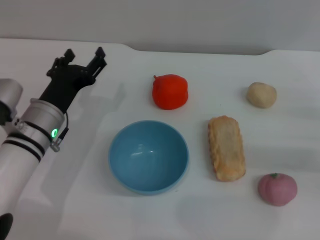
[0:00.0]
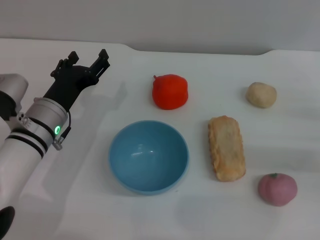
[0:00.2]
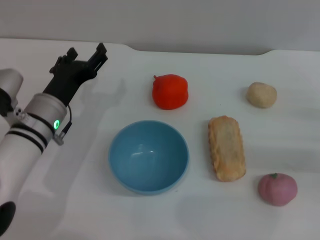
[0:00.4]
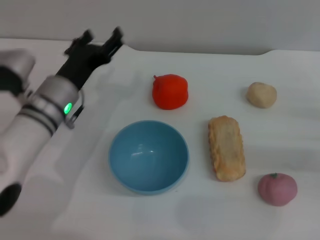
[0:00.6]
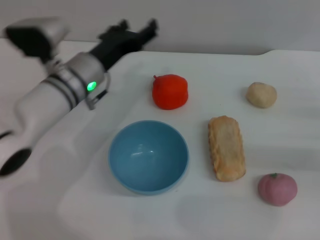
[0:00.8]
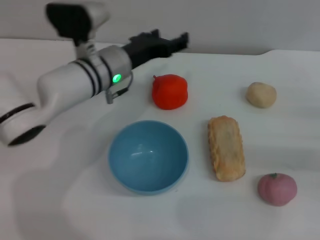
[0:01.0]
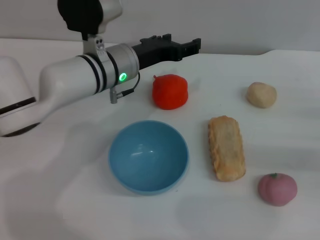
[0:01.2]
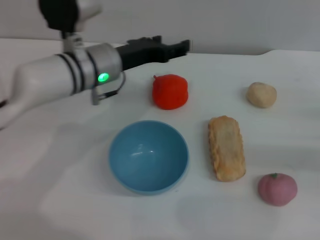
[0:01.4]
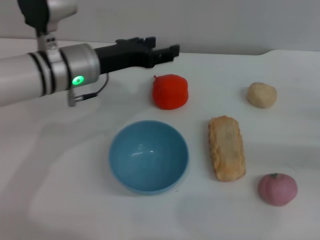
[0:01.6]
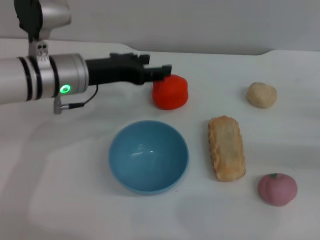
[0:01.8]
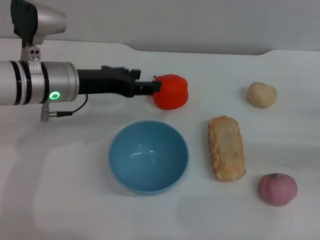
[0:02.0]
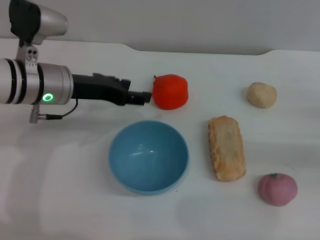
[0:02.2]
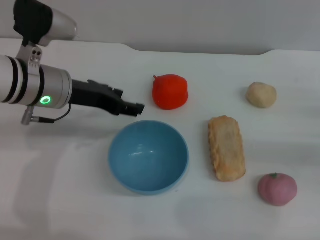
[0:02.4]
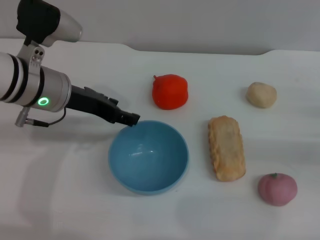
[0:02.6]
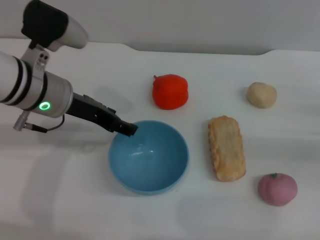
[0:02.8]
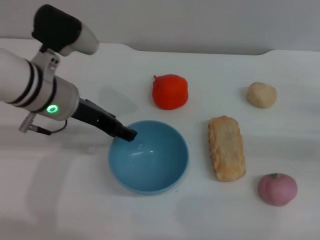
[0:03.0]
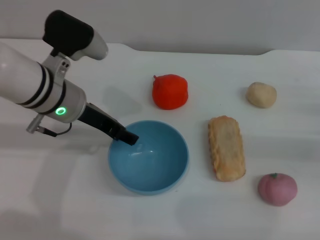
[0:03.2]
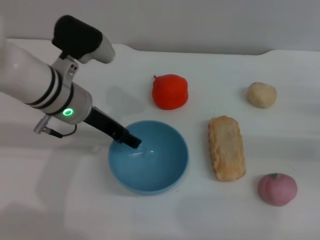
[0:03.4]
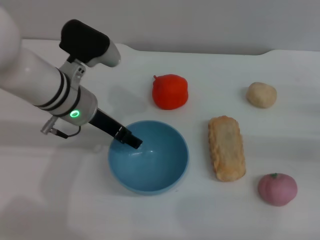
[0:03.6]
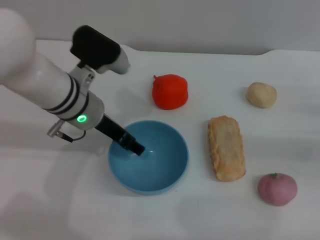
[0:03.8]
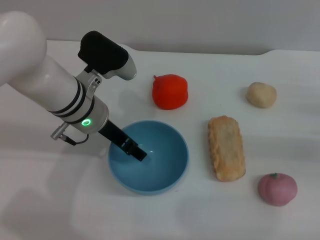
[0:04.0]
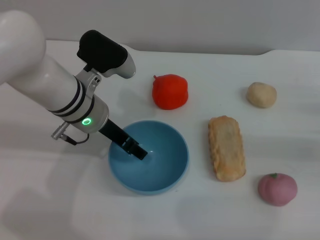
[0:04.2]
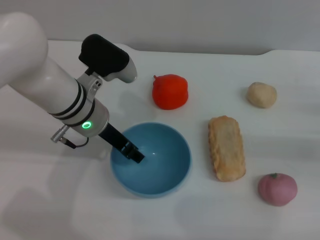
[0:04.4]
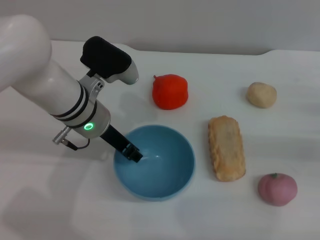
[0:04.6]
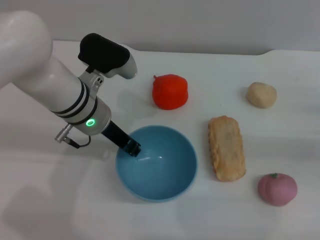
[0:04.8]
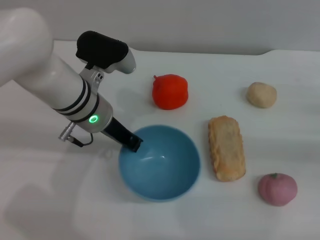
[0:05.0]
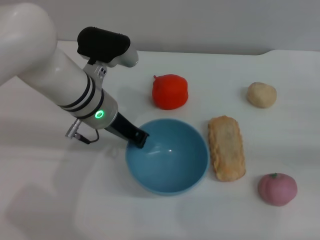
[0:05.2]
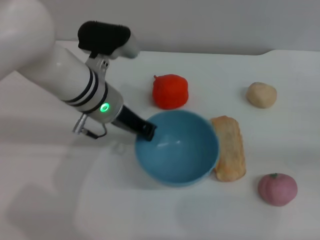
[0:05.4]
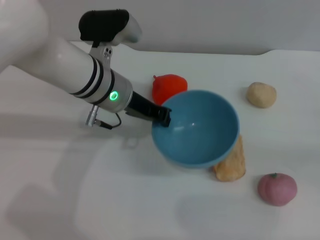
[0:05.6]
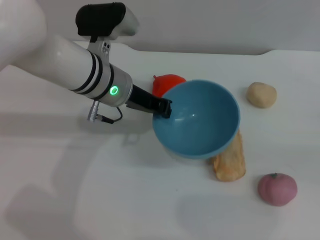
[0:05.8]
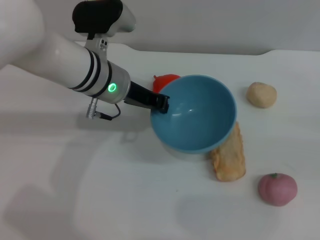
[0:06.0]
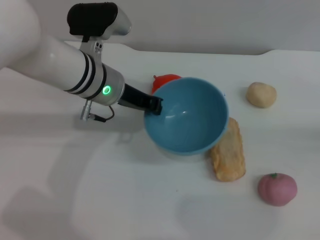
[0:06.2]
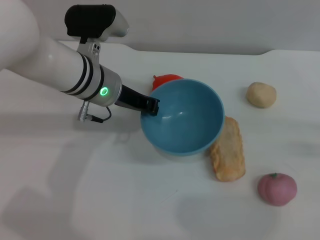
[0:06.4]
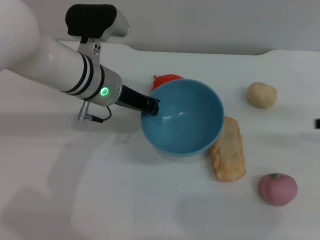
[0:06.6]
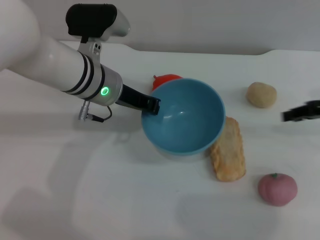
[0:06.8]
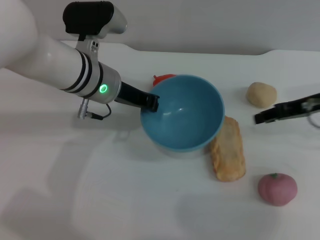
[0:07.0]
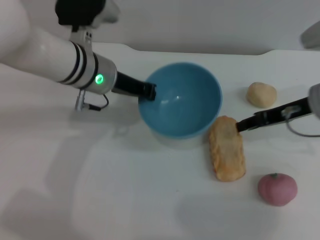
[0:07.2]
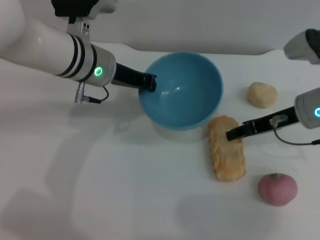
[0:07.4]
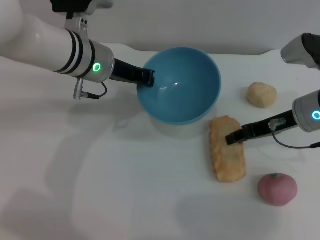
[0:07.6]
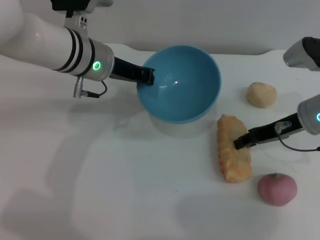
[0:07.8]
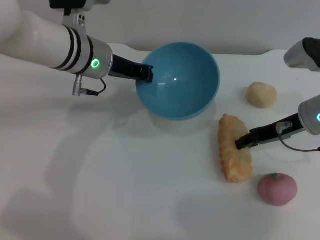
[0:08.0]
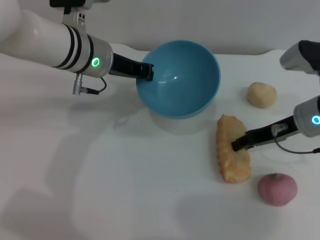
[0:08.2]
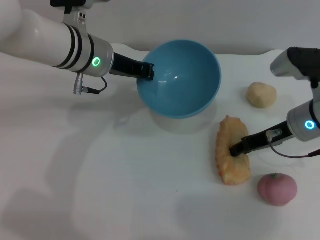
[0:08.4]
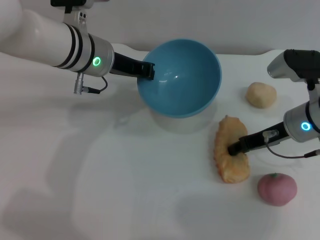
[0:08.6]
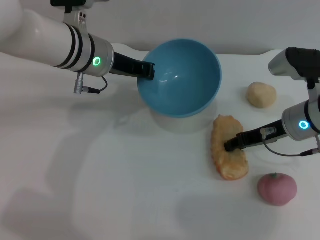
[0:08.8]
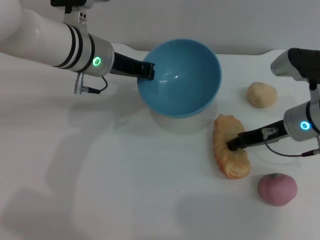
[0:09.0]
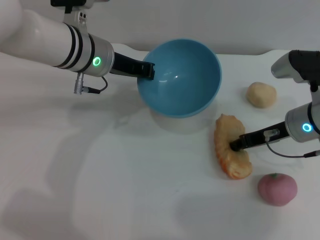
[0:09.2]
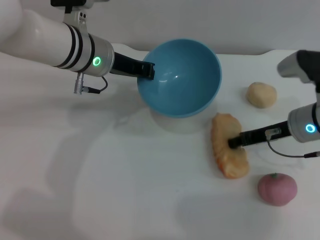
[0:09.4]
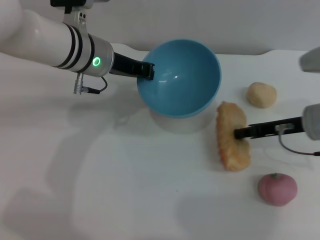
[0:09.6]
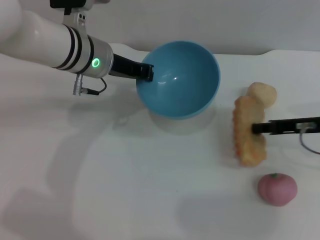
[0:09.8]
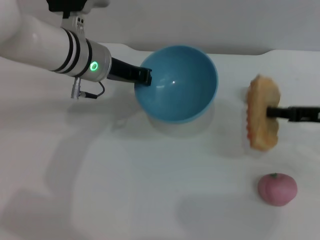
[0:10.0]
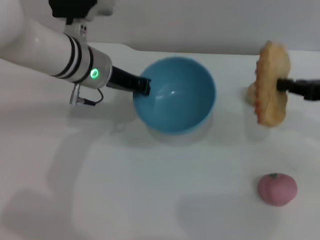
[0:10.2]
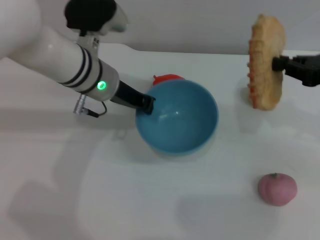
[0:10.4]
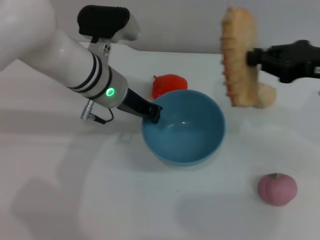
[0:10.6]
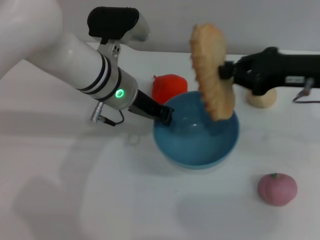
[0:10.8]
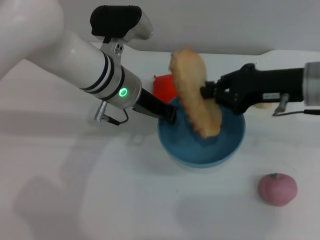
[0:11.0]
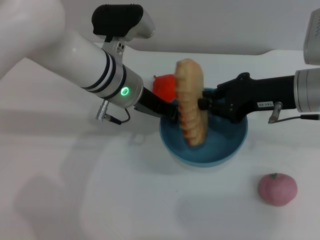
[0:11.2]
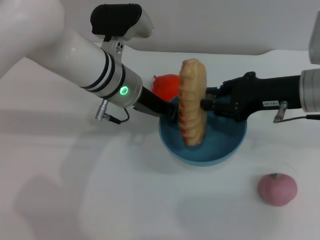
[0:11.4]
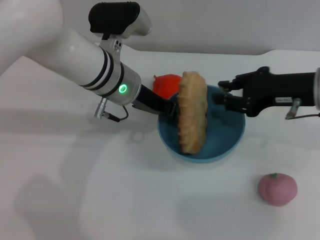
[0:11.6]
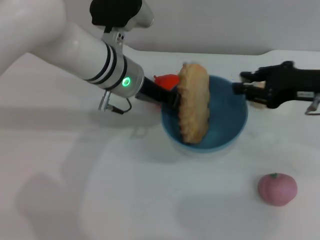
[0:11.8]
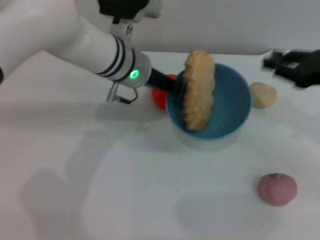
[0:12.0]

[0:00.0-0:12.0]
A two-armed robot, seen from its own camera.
Task of the whole recording: put the bread into the blue bowl and pour it out repeatedly.
Step, 0.0 to 5.6 s: Pick up the bowl with the left gripper.
Step, 5.8 to 9.8 s: Pick up the bread with the right gripper.
Step, 10.2 to 12.0 s: Place the bread into the bowl.
0.0 to 1.6 s: The left gripper heads upward and forward, covering about 10 cm.
3.0 to 4.4 s: The left gripper moves some 5 cm.
4.4 to 6.0 s: The right gripper moves to the right, some 5 cm; the left gripper closes.
6.0 to 7.6 s: The right gripper goes about 25 cm to the left.
7.6 to 9.0 s: There are only small adjustments of the grippers.
9.0 to 10.4 s: The right gripper travels upward and to the right by roughly 15 cm.
10.4 to 12.0 s: The right gripper moves about 10 cm to the left and comes back, and opens.

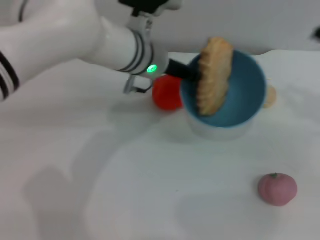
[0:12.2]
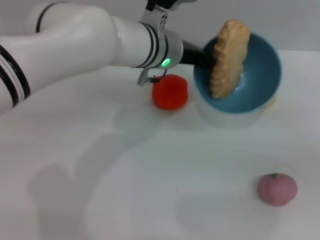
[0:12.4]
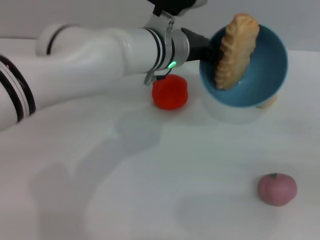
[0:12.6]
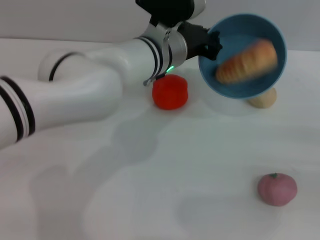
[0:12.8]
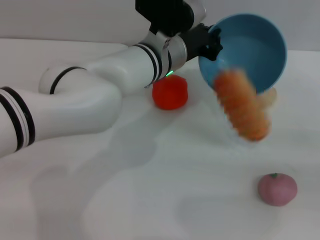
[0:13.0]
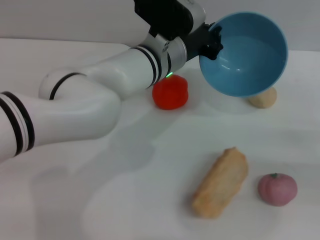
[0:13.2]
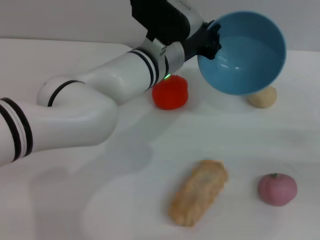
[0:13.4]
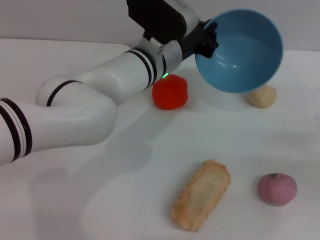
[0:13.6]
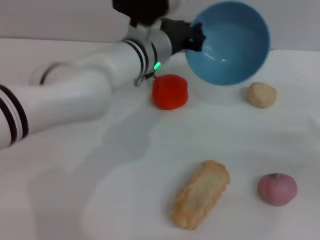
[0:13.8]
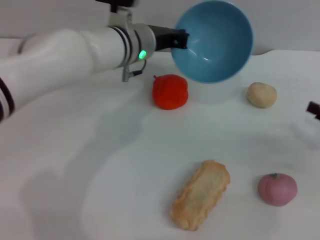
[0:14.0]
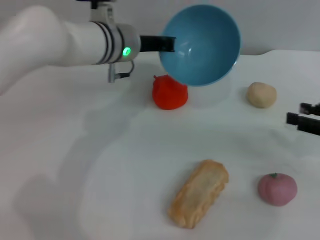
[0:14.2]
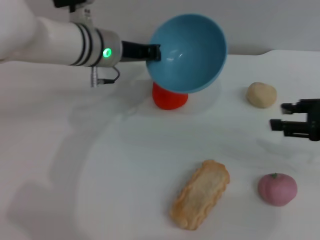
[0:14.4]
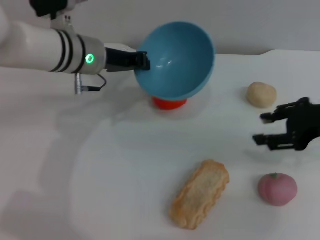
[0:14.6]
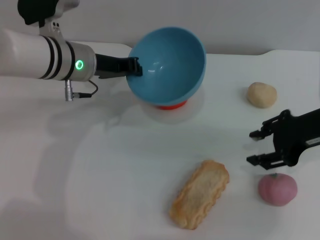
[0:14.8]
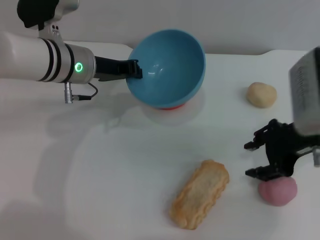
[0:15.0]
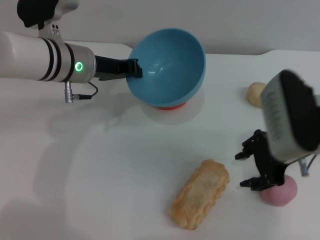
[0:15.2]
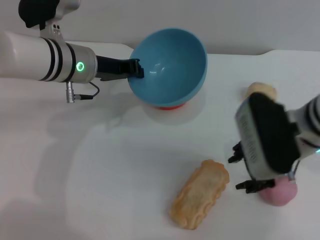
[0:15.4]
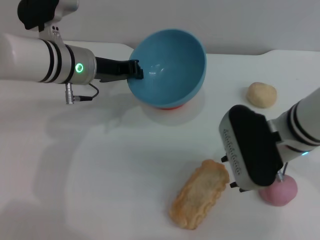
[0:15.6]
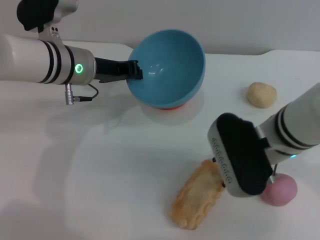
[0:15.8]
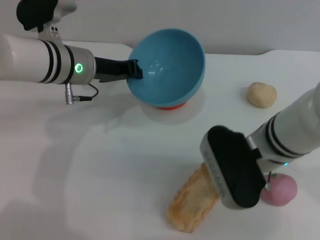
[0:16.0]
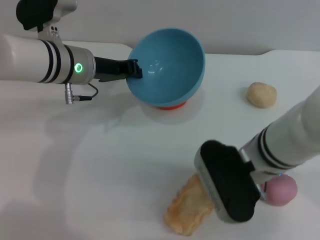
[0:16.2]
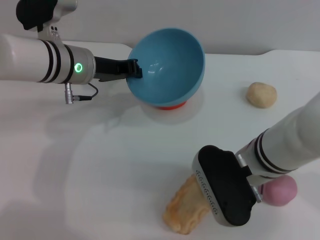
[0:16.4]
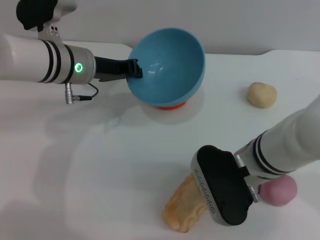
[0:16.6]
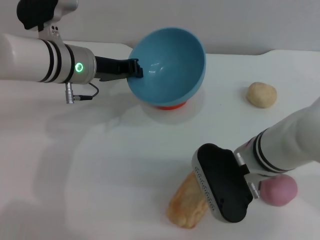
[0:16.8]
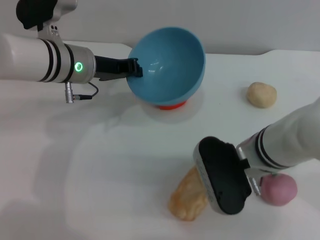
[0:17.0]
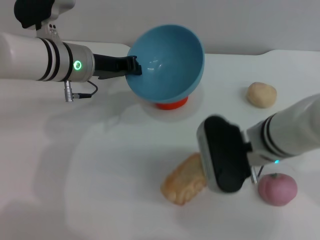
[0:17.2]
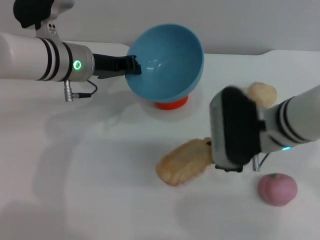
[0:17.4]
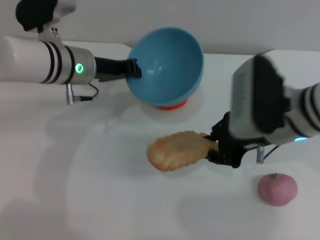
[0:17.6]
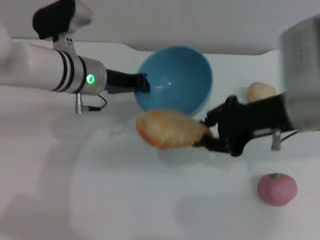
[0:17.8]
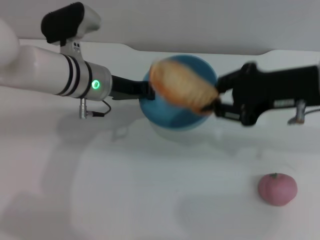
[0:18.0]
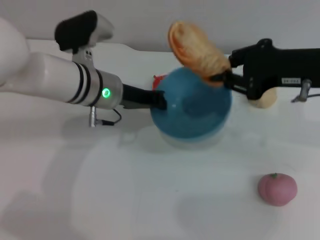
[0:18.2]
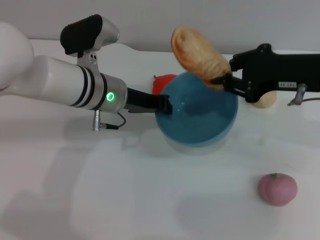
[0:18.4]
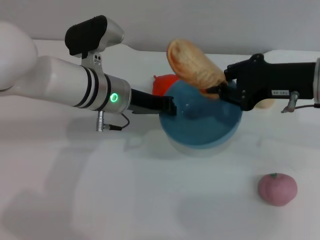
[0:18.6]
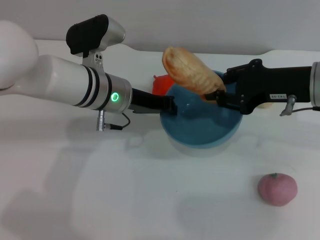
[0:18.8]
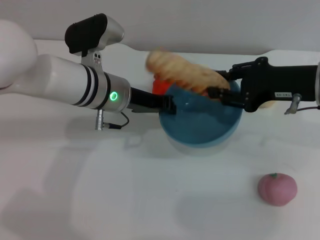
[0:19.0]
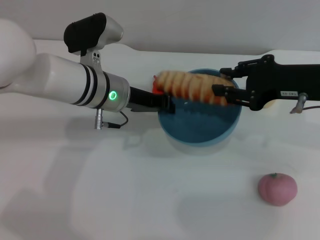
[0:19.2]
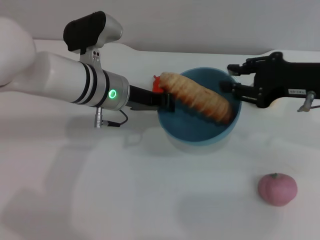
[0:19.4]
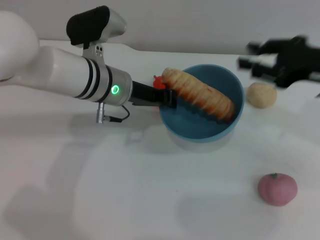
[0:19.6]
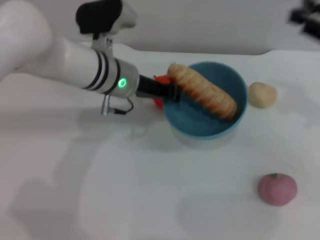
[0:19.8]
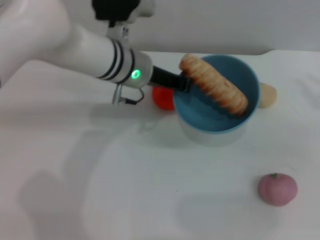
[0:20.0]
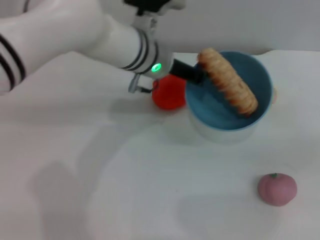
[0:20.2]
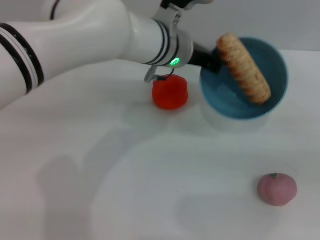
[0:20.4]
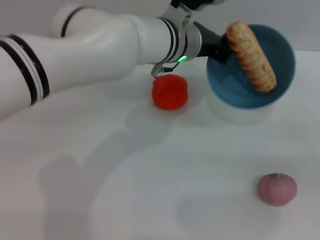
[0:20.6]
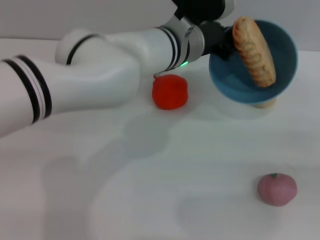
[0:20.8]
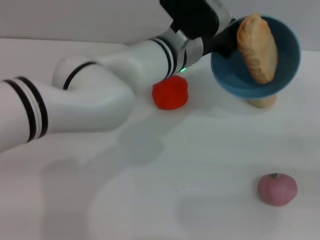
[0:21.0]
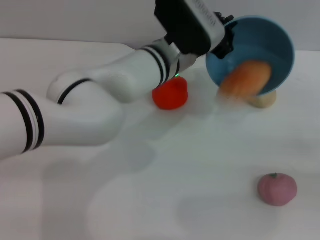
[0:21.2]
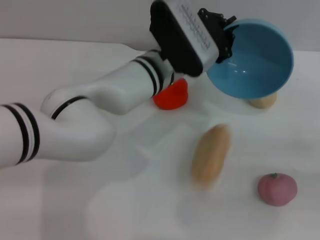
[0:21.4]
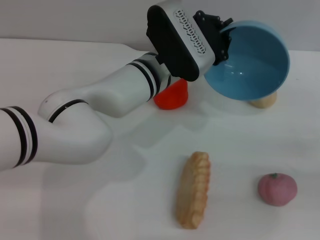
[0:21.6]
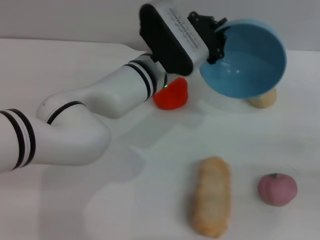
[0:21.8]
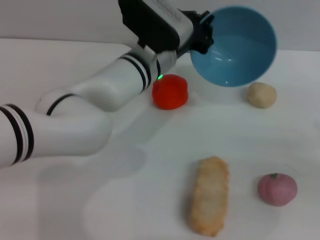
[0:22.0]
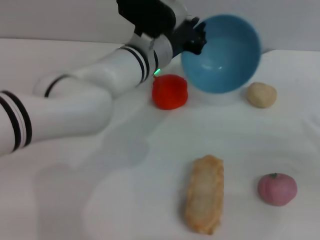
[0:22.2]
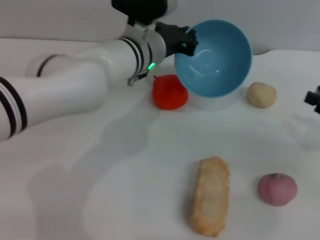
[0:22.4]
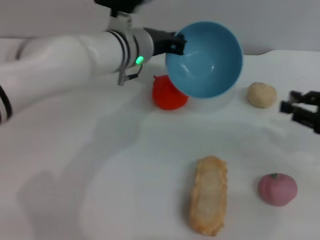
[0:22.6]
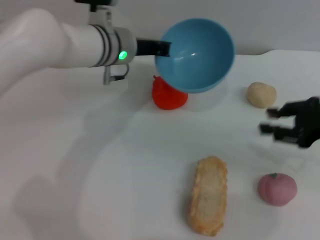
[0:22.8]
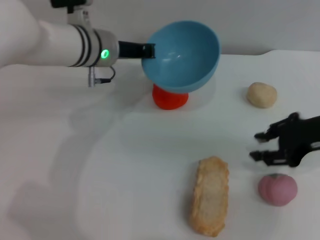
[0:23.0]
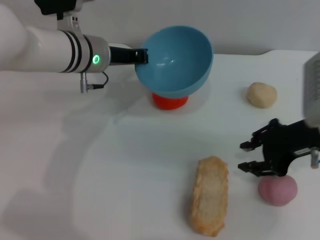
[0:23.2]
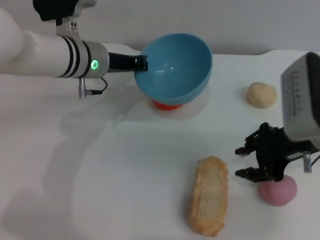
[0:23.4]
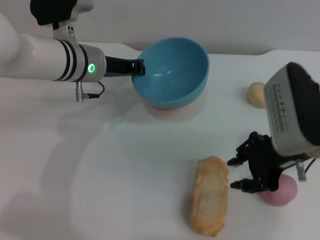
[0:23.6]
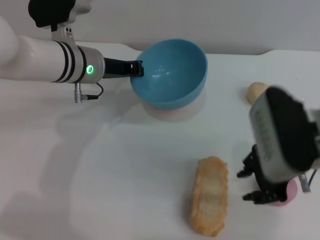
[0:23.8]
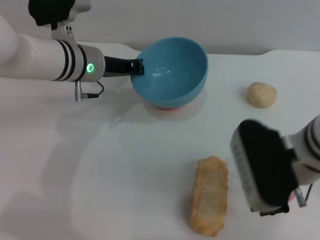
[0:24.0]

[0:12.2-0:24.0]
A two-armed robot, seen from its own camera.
Task of the whole recording: put the bread into the blue bowl and pour it out repeatedly.
Step, 12.2 to 13.6 s: Pour the bread out of the bowl.
Step, 13.8 to 17.4 s: Pick up the bread with the right gripper.
Step, 17.8 to 19.6 s: Place the bread into the bowl.
Step, 19.8 to 21.8 s: Pour the bread out of the bowl.
12.2 to 13.6 s: The right gripper shifts about 10 cm downward, and opens its fingers.
13.6 to 15.2 s: The left gripper moves to the left, about 15 cm. The right gripper is displaced to the left and upward by about 20 cm.
15.2 to 16.6 s: The right gripper heads to the left and downward, covering about 10 cm.
16.6 to 18.2 s: The right gripper is displaced upward and to the right by approximately 15 cm, and closes its fingers.
18.2 to 19.6 s: The grippers make only small movements.
19.6 to 21.0 s: The left gripper travels to the right by approximately 10 cm. The right gripper shifts roughly 20 cm to the right, backward and downward.
21.0 to 22.6 s: The left gripper is displaced to the left by approximately 5 cm. The right gripper heads to the left and forward, covering some 10 cm.
22.6 to 24.0 s: The right gripper goes some 20 cm to the left, while the left gripper heads to the left, covering some 5 cm.
